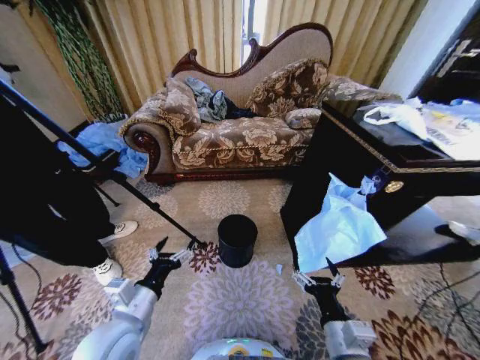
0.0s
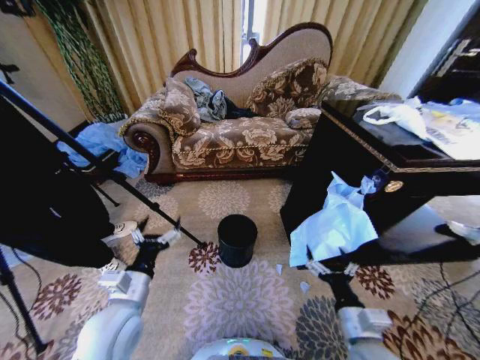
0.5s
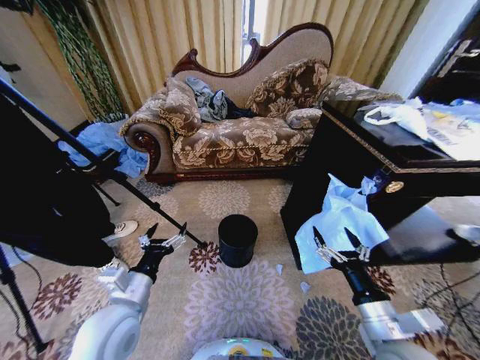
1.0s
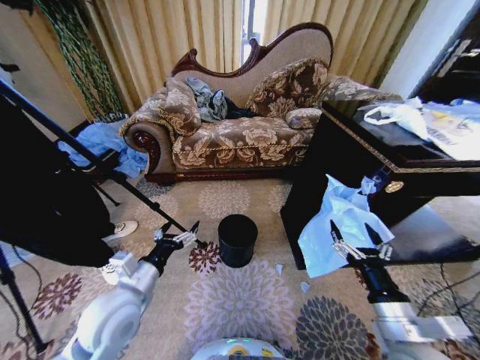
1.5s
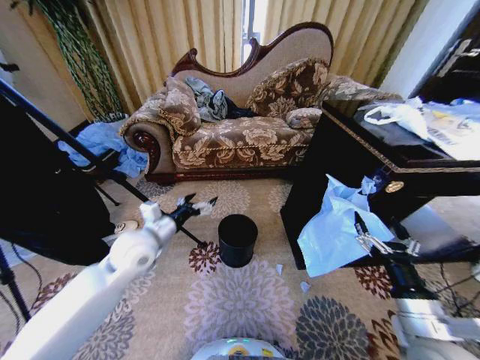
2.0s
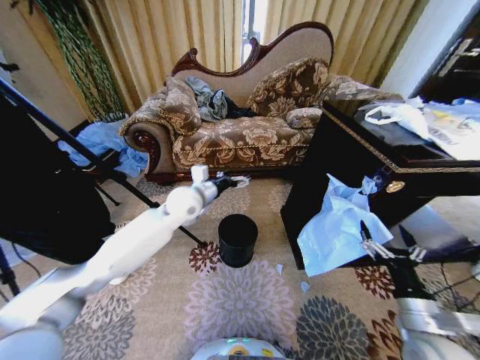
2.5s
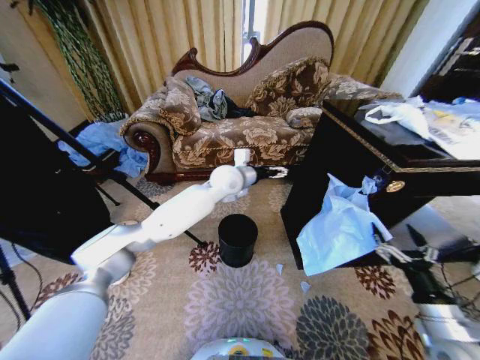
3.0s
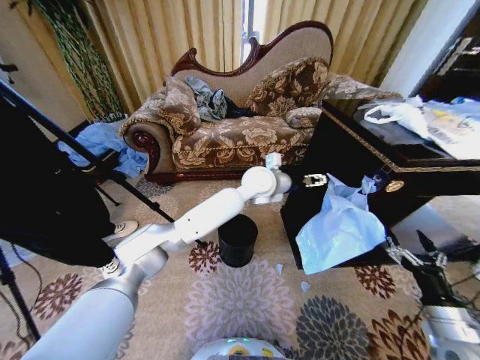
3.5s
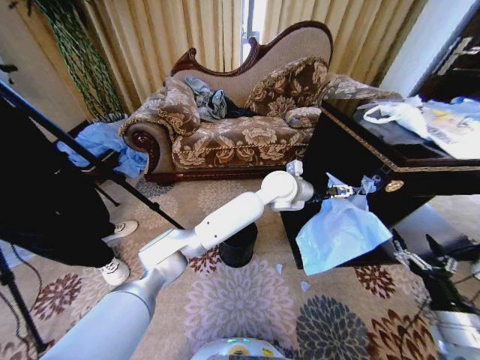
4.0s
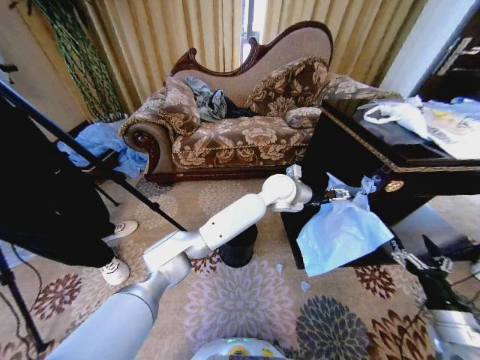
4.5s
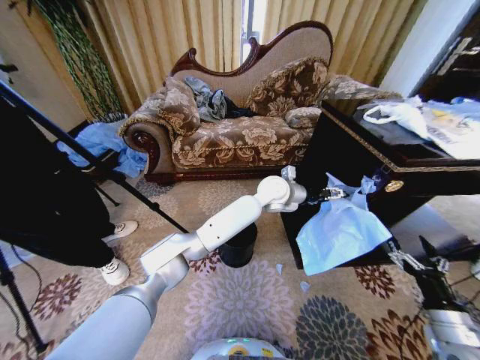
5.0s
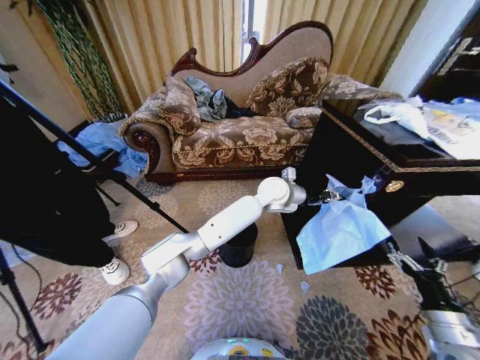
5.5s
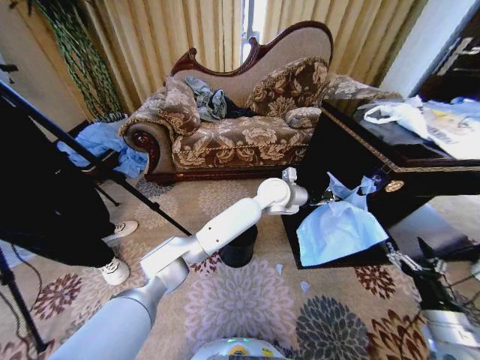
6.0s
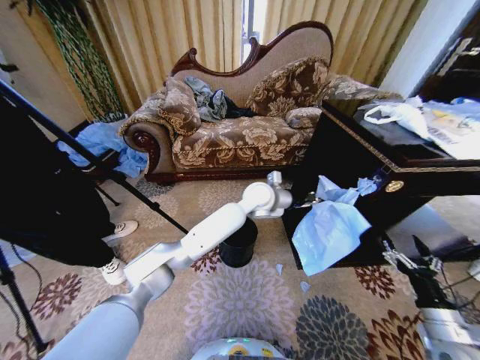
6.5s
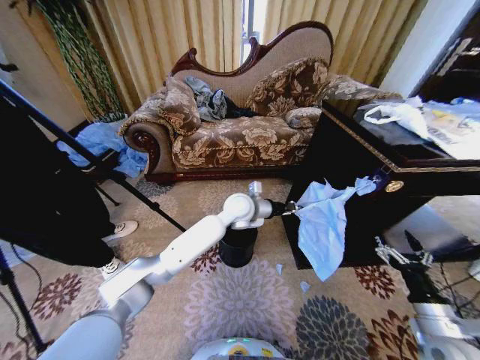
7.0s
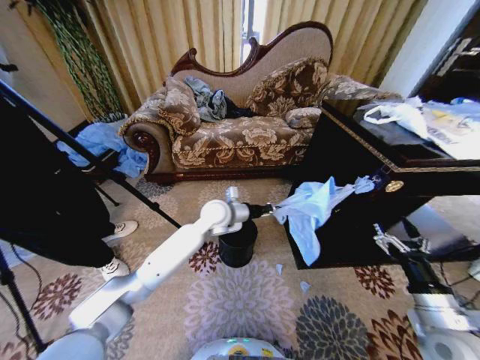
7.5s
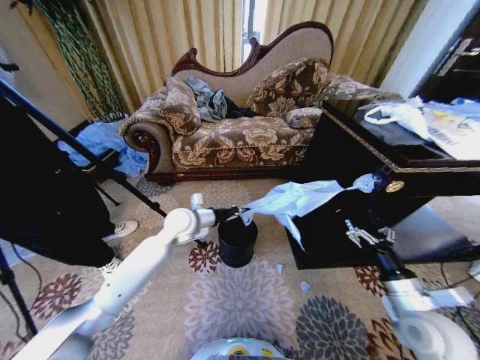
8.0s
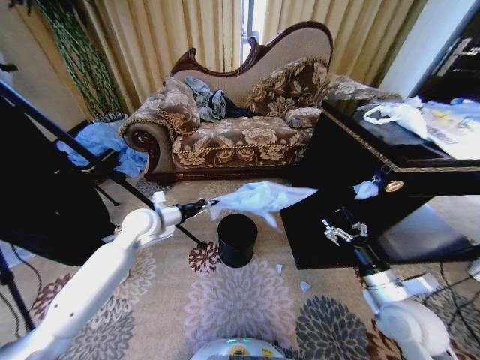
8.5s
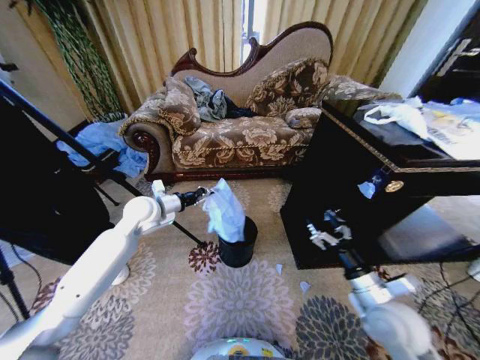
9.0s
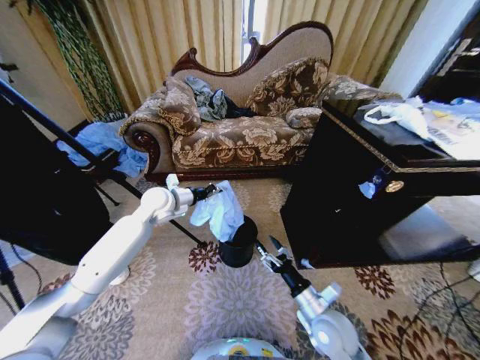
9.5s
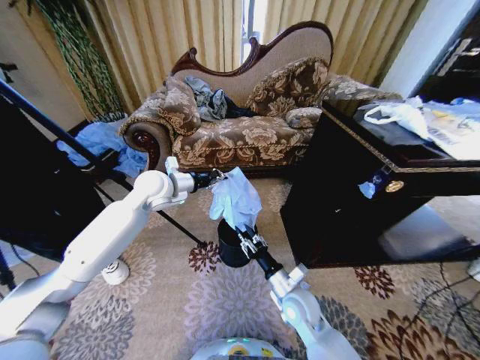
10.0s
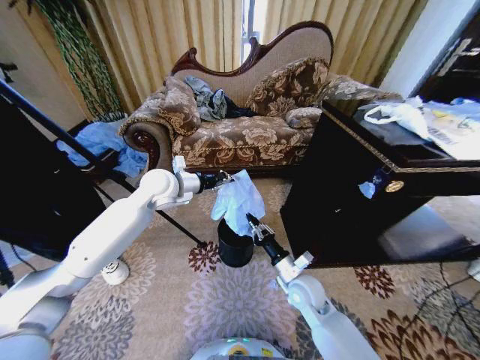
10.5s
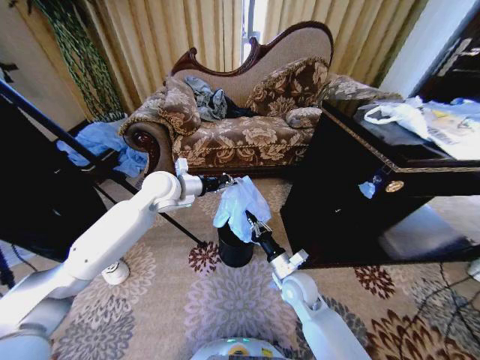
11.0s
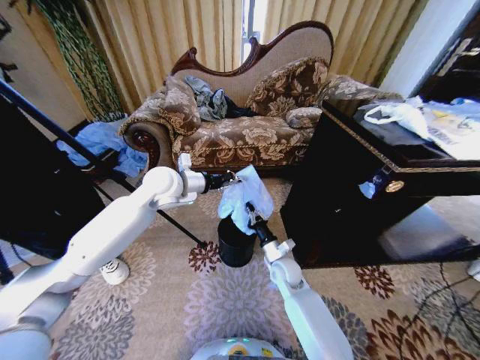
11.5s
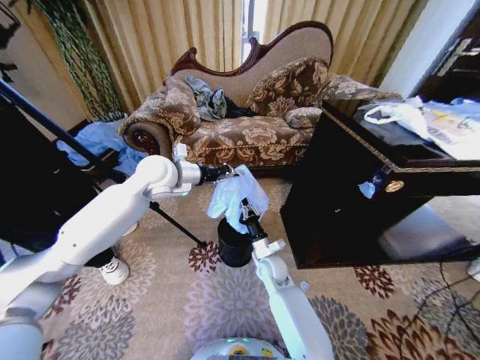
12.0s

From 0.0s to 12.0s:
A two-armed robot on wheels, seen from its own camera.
Task of the whole recording: Place a garbage bag over the trash bin.
From 2.0s to 4.0s: The right gripper goes about 15 cm to the right and downward; the left gripper shifts some 40 cm to the right and forward.
From 4.0s to 6.0s: The left gripper closes up.
From 6.0s to 8.0s: The left gripper shifts about 30 cm to the left. The right gripper moves to the left and forward, roughly 10 cm.
From 8.0s to 10.0s: The right gripper is displaced to the left and downward by approximately 25 cm, and closes its fingers. Meanwhile the left gripper is displaced upward by about 10 cm.
From 10.0s to 12.0s: The right gripper is displaced forward and to the left by approximately 10 cm, and closes its fingers.

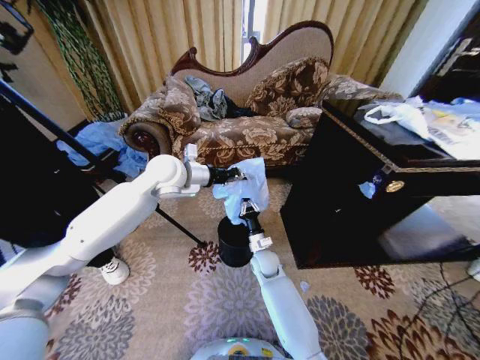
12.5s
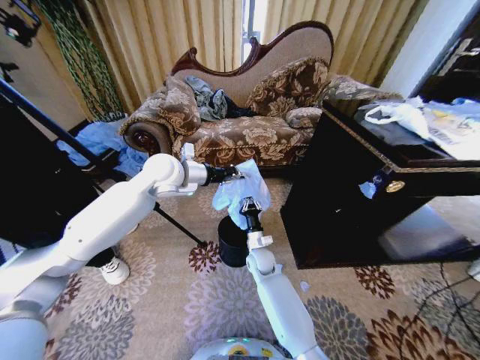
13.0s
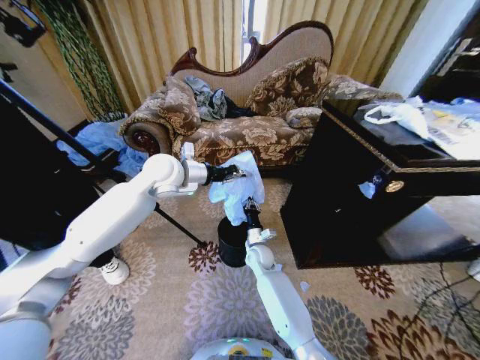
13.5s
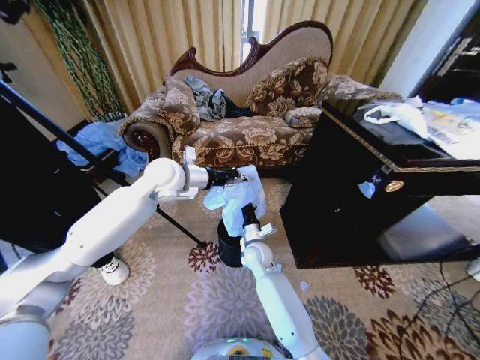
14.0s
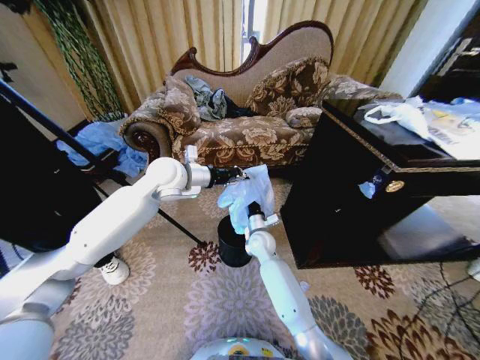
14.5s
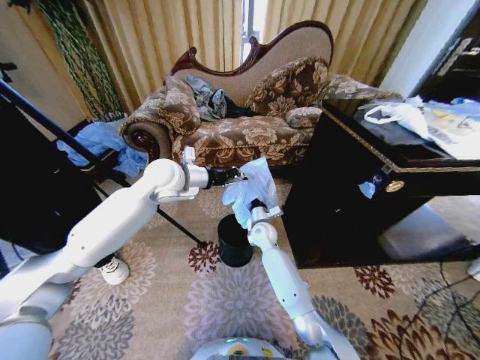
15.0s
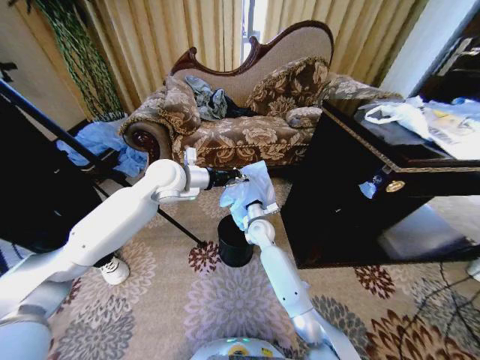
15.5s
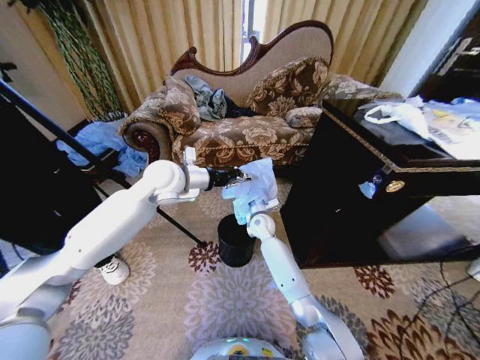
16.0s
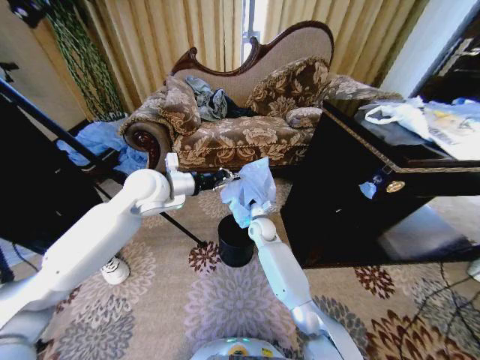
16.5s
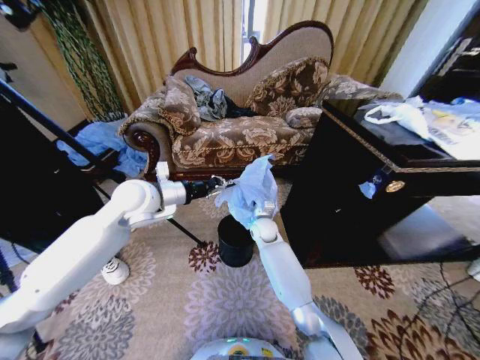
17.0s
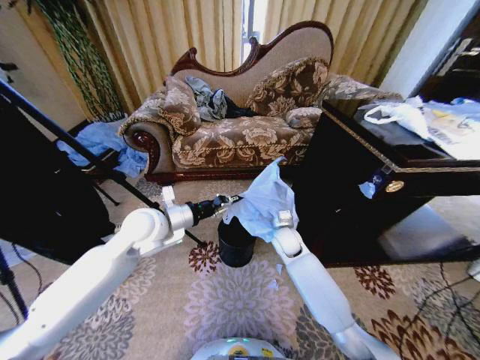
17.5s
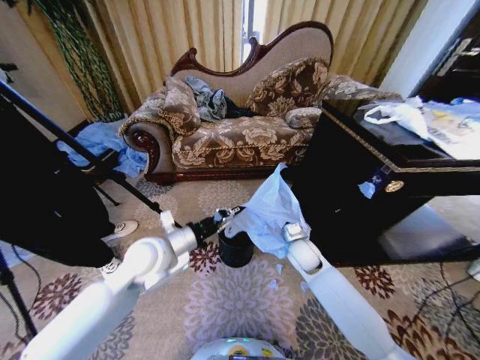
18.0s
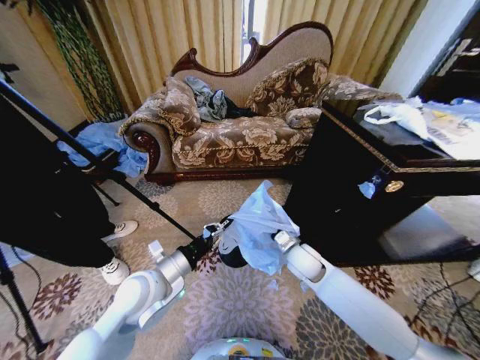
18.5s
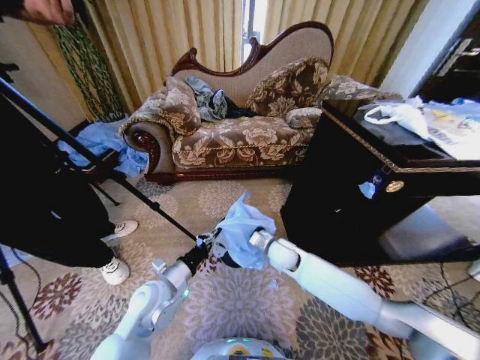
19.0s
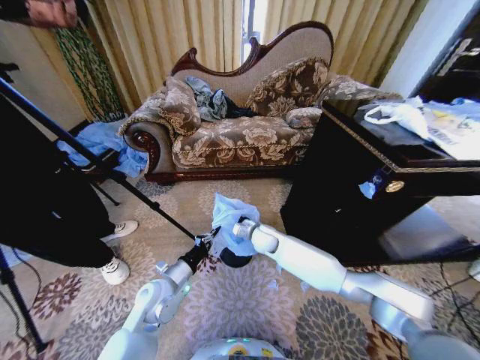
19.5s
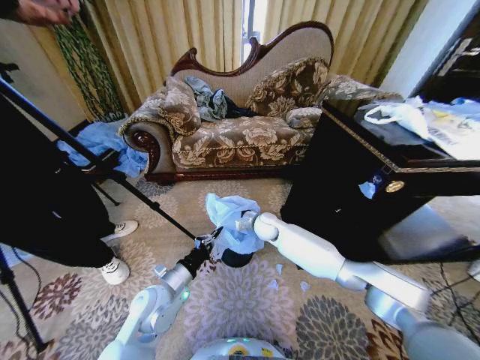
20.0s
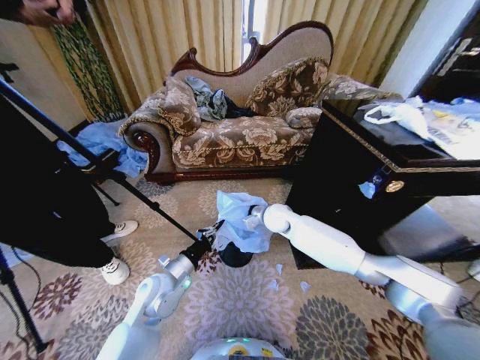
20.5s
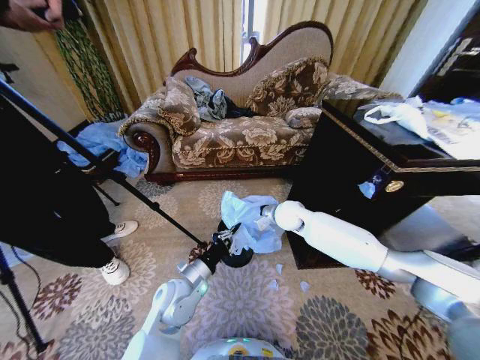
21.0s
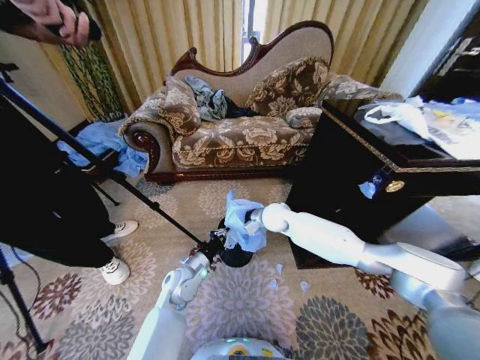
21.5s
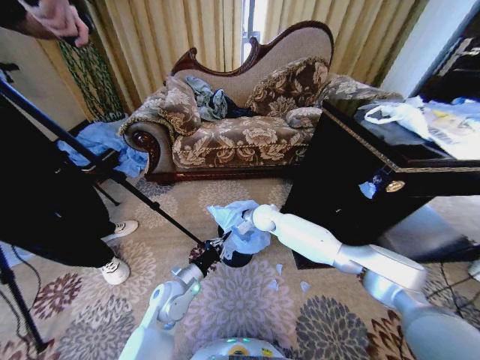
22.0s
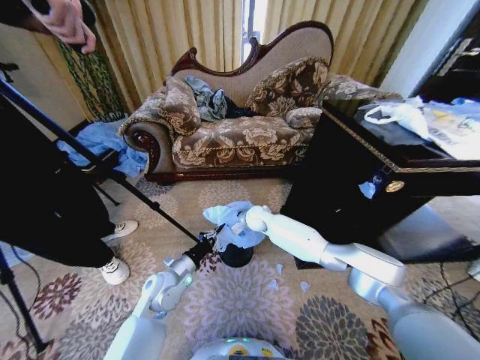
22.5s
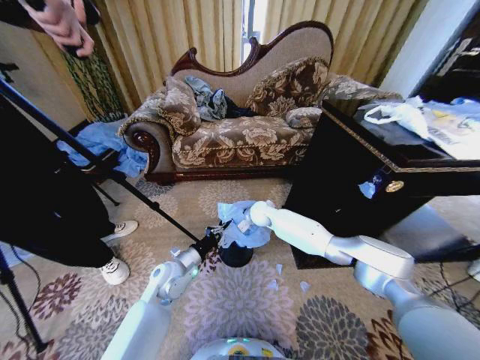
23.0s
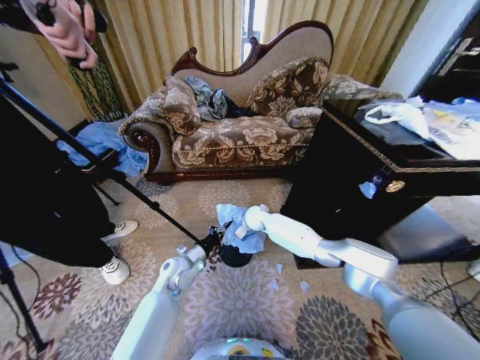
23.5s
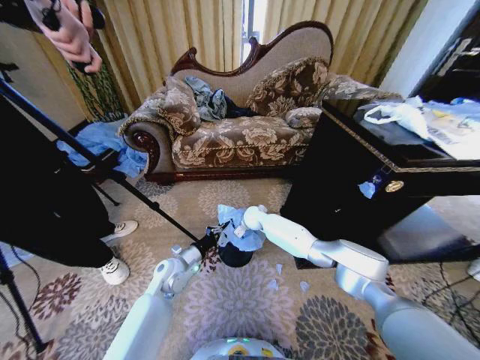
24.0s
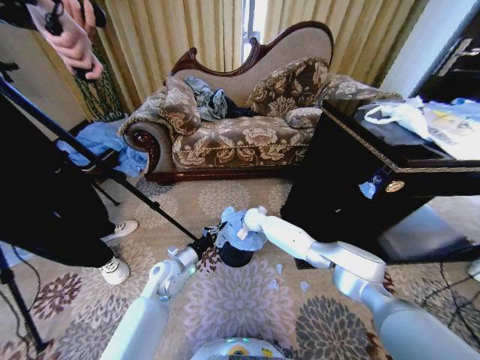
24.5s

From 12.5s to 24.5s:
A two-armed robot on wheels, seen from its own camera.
Task of the whole recording: Place a garbage bag over the trash bin.
From 12.5s to 14.5s: The right gripper heads upward, covering roughly 5 cm.
From 14.5s to 16.5s: The left gripper shifts by roughly 5 cm. Meanwhile the right gripper changes place by about 5 cm.
From 16.5s to 18.5s: The left gripper moves backward and downward, about 25 cm, while the right gripper shifts approximately 15 cm backward and to the right.
From 18.5s to 20.5s: The left gripper moves downward, approximately 10 cm. Meanwhile the right gripper travels forward and to the left by roughly 15 cm.
From 20.5s to 22.5s: The right gripper travels to the left and downward by some 10 cm.

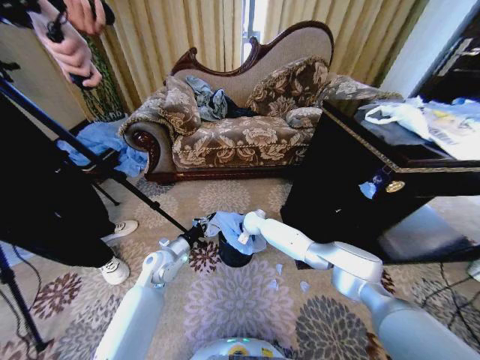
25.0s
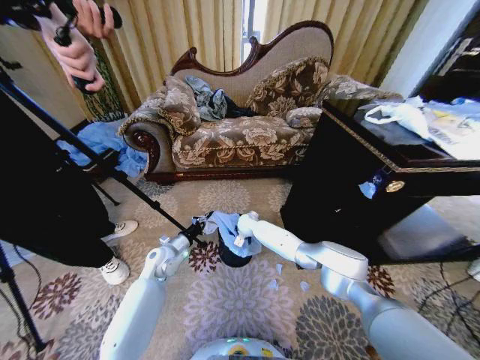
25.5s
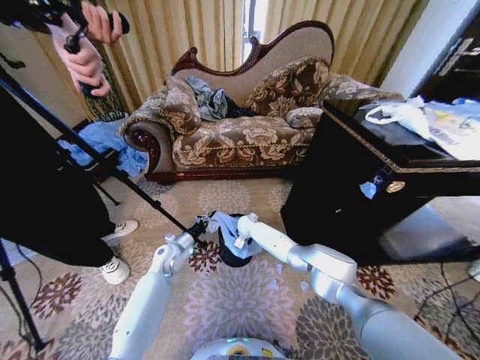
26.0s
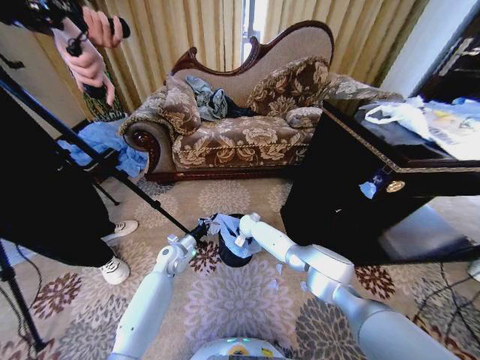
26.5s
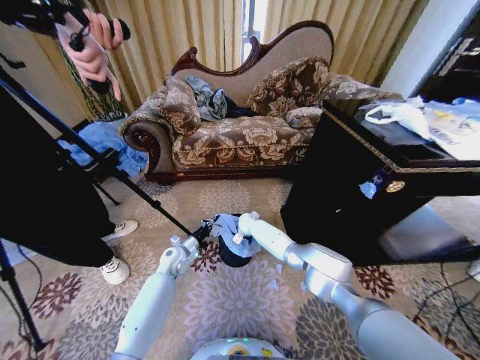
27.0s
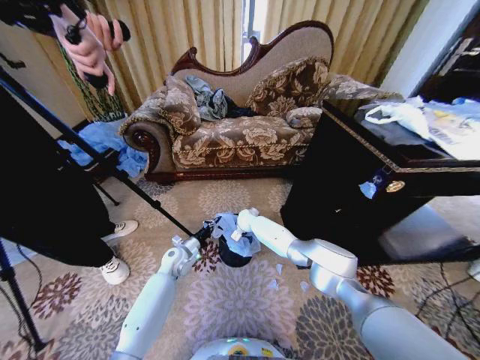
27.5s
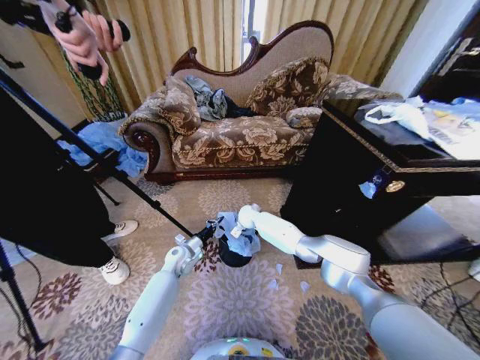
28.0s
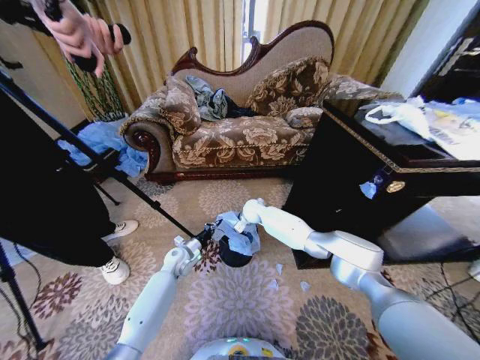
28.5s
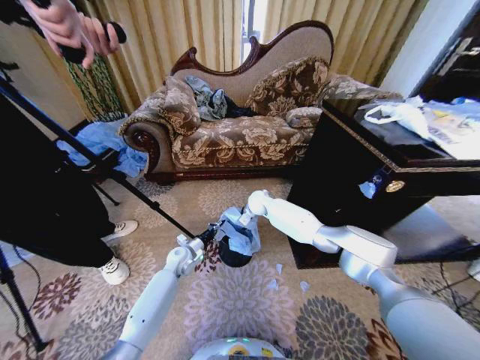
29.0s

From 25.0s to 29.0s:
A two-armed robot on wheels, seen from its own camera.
Task of the whole recording: Place a garbage bag over the trash bin.
From 25.0s to 27.0s: The left gripper travels downward and forward by approximately 10 cm. The right gripper opens its fingers.
From 27.0s to 29.0s: The right gripper travels upward by about 10 cm, and opens up.
